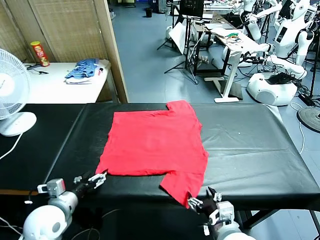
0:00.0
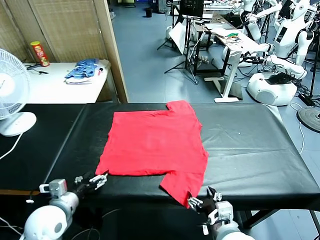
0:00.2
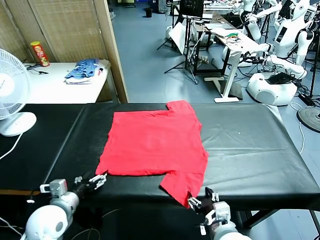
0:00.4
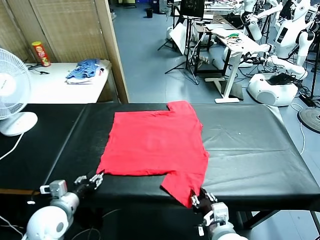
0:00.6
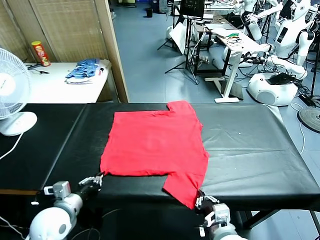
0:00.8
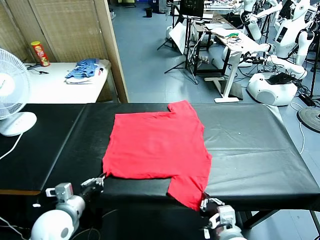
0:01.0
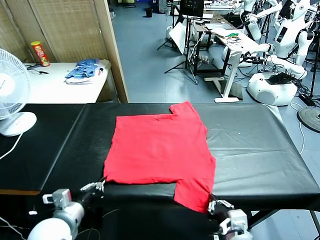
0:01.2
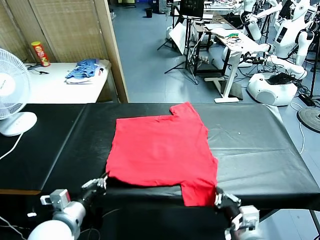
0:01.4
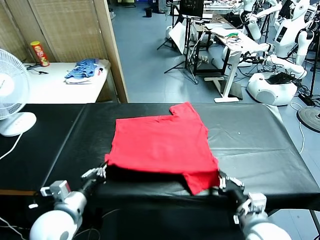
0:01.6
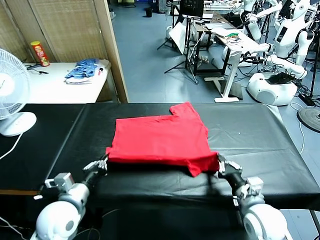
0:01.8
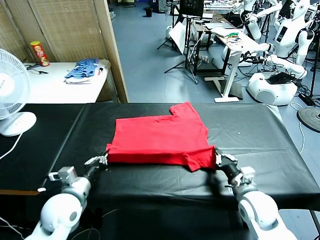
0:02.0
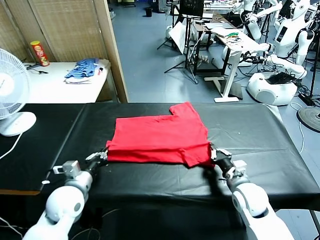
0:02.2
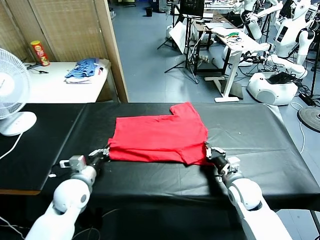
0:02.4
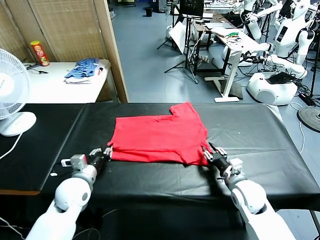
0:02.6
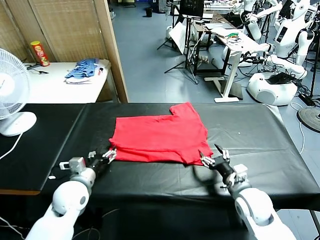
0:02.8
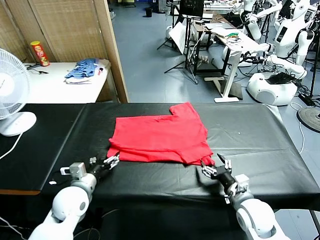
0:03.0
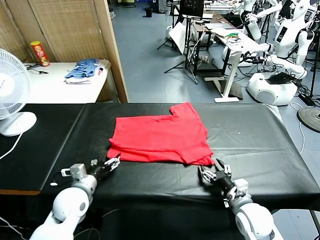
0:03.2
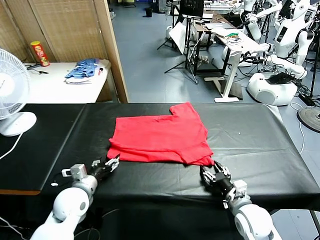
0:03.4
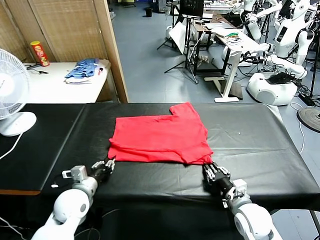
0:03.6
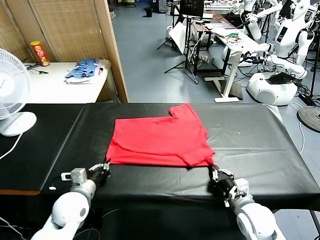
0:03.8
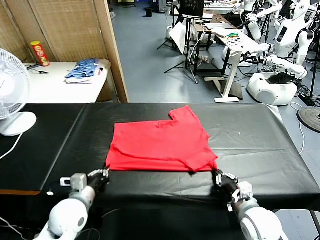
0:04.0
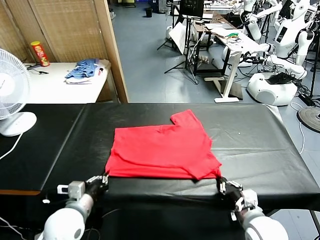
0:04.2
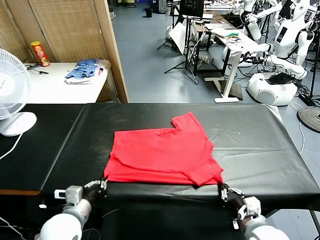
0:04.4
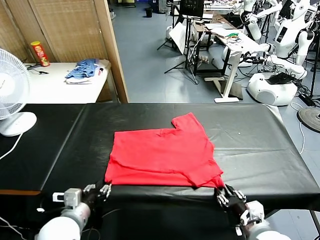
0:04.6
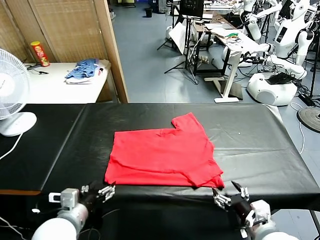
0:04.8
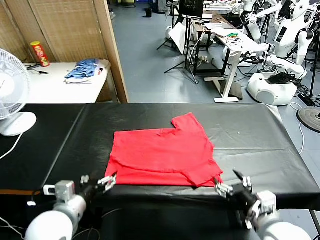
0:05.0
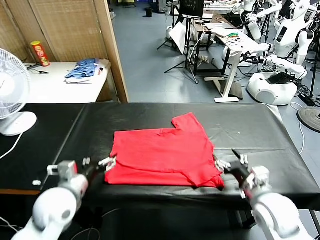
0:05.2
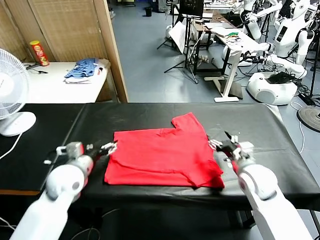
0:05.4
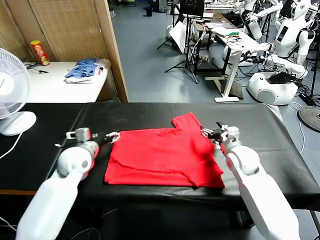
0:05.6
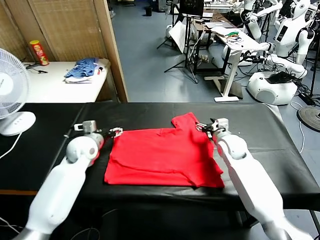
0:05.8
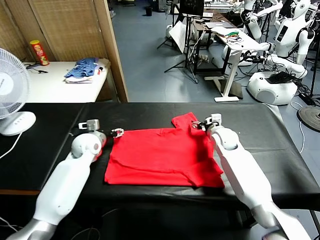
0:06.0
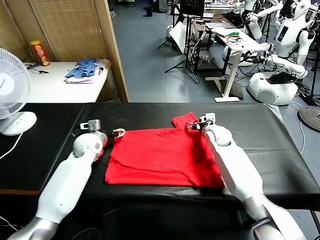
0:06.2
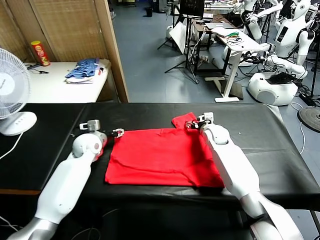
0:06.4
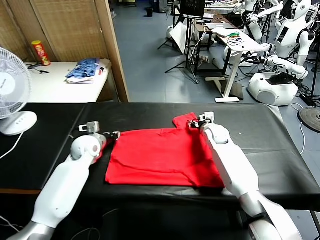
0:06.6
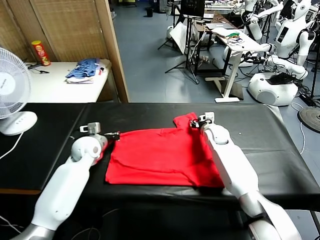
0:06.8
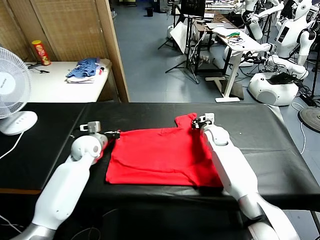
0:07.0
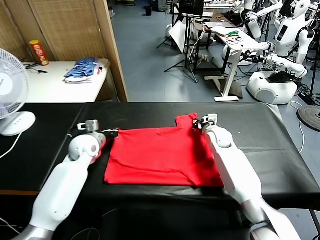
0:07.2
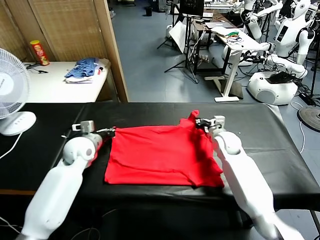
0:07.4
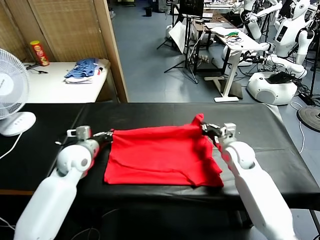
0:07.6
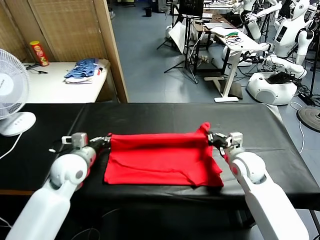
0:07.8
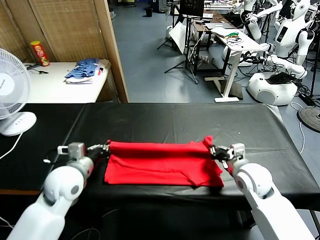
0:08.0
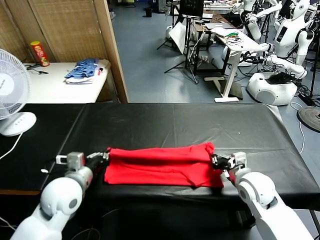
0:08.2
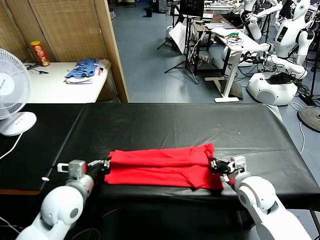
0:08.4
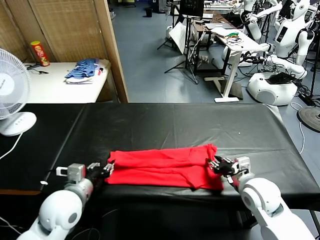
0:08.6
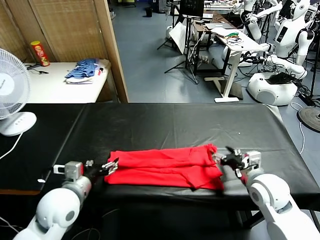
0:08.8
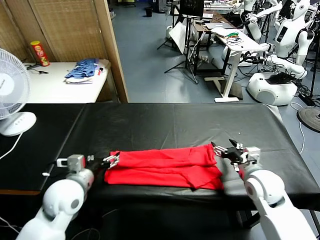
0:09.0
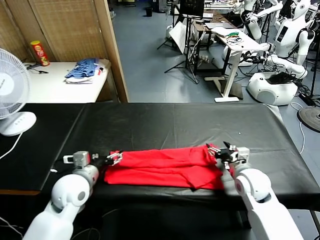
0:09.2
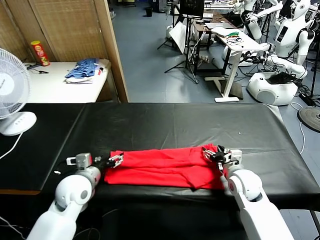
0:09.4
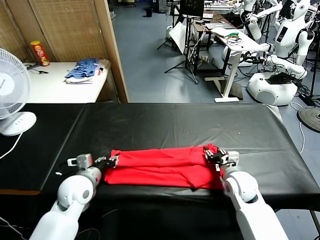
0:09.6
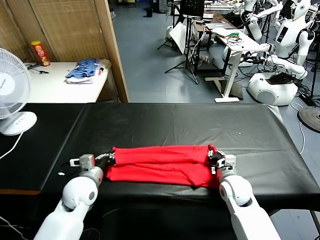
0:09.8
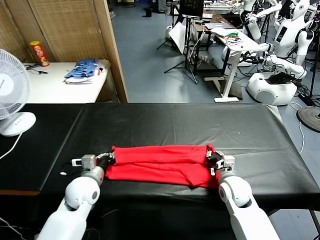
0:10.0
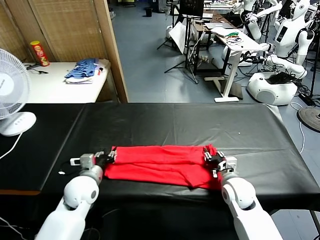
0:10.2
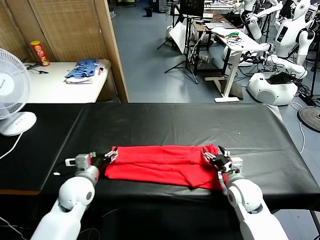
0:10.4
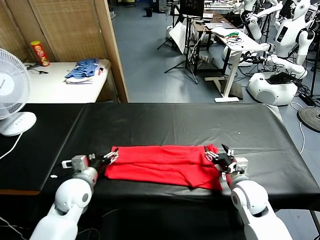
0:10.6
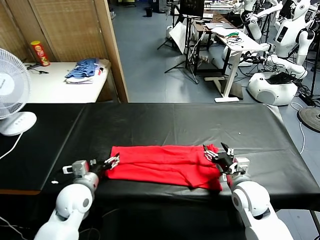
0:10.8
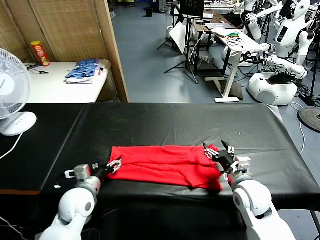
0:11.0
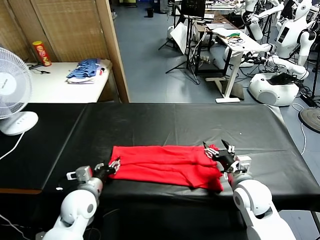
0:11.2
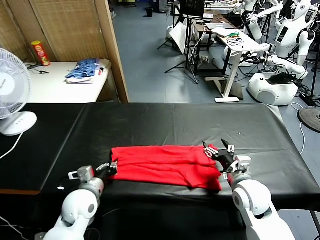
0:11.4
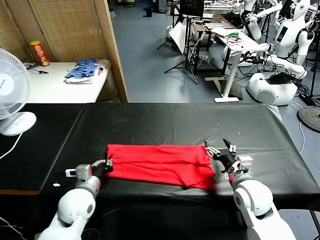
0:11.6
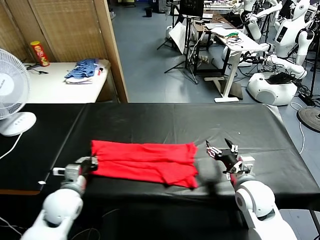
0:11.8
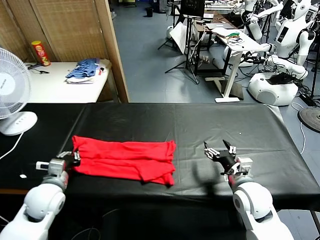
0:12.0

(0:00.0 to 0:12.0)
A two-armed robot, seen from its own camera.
Task of the whole recording: fold and organize the clothes.
Step, 0:00.0 - 0:00.8: use both grippers simultaneously to clamp the lower edge of the clothing fabric.
Step, 0:01.0 - 0:02.8: use both grippers to drag the lower edge of the fabric forward and fold it over the upper edge.
Step, 0:03.0 - 0:04.8: Drag the clothes downward with both gripper.
Step, 0:05.0 - 0:07.0: use both grippers simultaneously to clamp the upper edge of the clothing fabric.
Step, 0:07.2 - 0:08.6: use both grippers to drag the upper edge of the fabric backward and fold it over the lower edge.
Step, 0:09.0 - 0:11.4: use the left gripper to clamp the left edge of the fabric.
0:01.6 - 0:03.0: The left gripper moves forward and downward, approximately 10 cm, and opens. The right gripper travels downward by approximately 5 cm, travels forward and back again, roughly 10 cm each way, and opens up.
0:03.0 - 0:04.4: The right gripper moves backward and upward, approximately 10 cm, and closes, then opens again. Meanwhile the left gripper shifts about 10 cm backward, and closes.
0:04.4 - 0:06.0: The two grippers go approximately 35 cm forward. The right gripper opens; the left gripper opens its fingers.
0:06.0 - 0:07.6: Both grippers travel together backward, some 15 cm. The left gripper closes. Meanwhile the right gripper closes up.
0:07.6 - 0:09.0: The left gripper moves backward, approximately 10 cm, and opens its fingers; the right gripper heads backward, covering roughly 5 cm, and opens its fingers.
0:09.0 - 0:10.4: The right gripper closes, then reopens. Meanwhile the left gripper ends up approximately 5 cm from where it was, and closes, then reopens.
0:10.4 - 0:12.0: The left gripper shifts roughly 5 cm to the left, and closes.

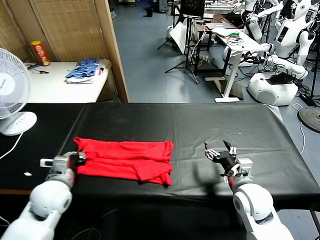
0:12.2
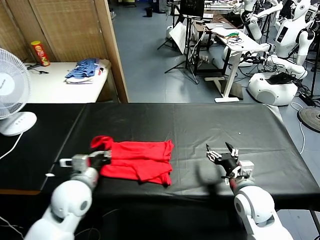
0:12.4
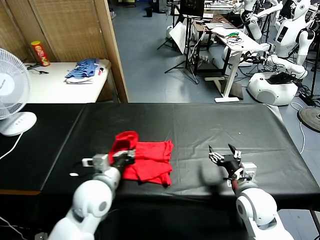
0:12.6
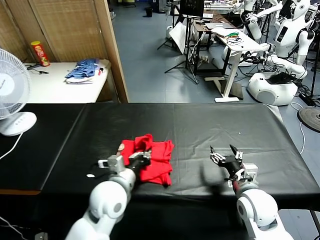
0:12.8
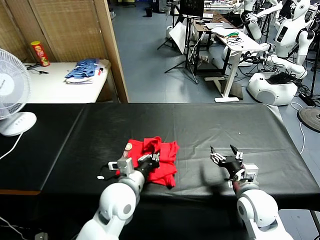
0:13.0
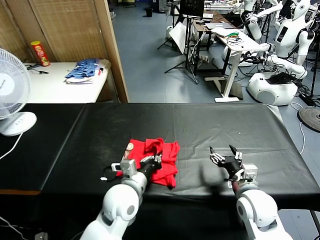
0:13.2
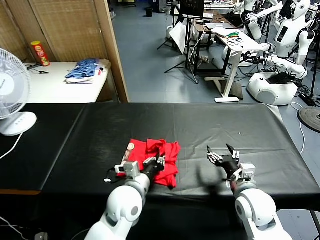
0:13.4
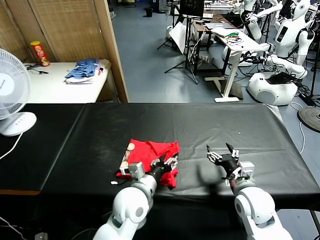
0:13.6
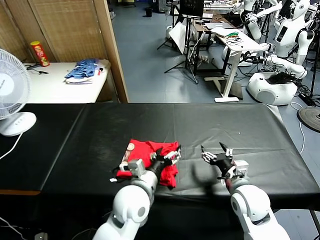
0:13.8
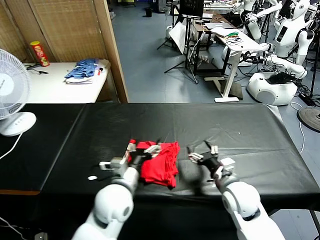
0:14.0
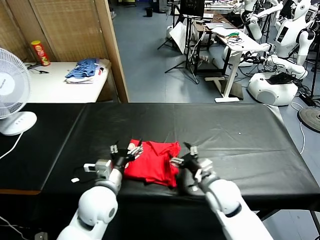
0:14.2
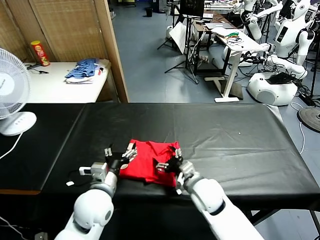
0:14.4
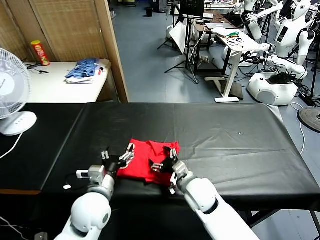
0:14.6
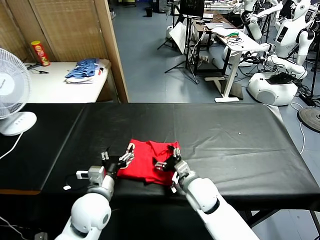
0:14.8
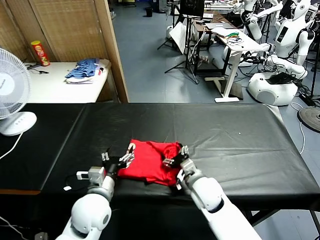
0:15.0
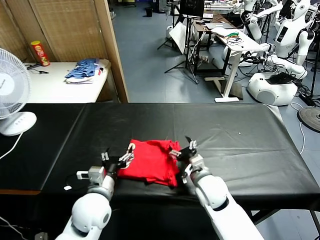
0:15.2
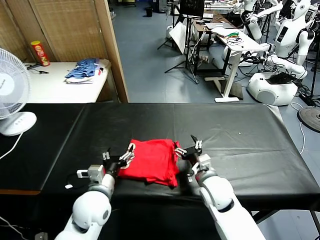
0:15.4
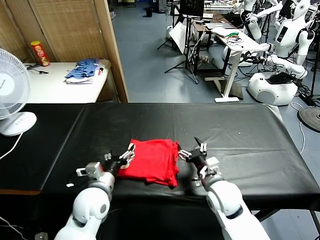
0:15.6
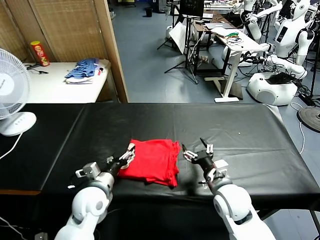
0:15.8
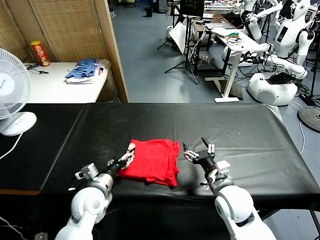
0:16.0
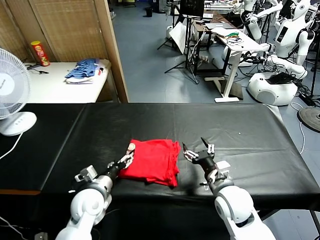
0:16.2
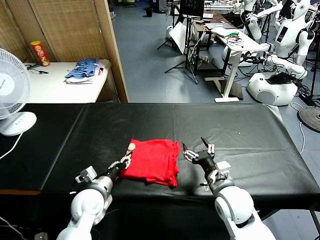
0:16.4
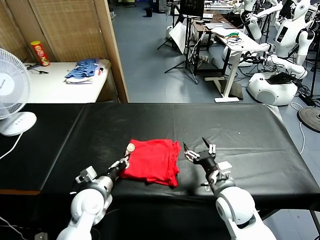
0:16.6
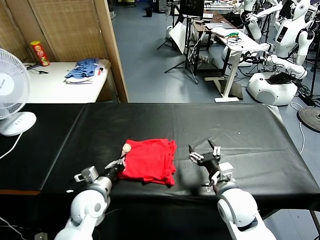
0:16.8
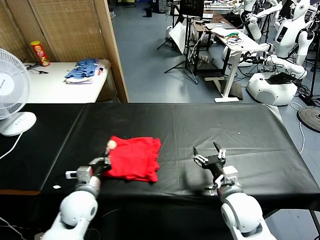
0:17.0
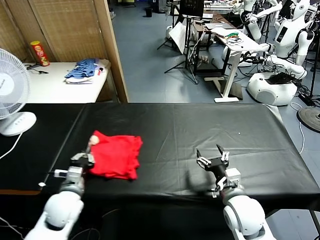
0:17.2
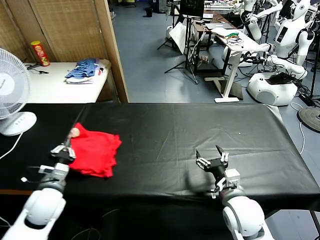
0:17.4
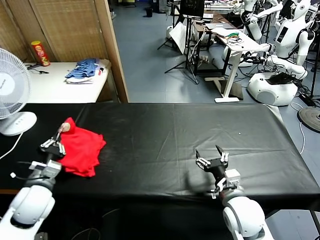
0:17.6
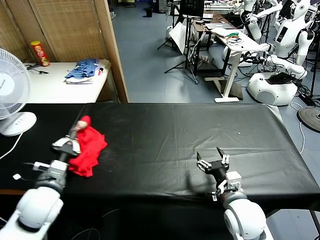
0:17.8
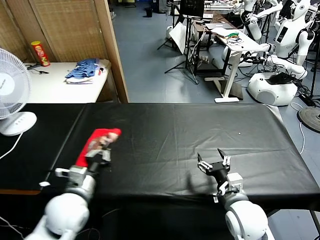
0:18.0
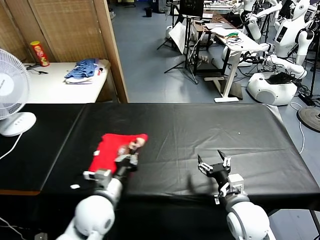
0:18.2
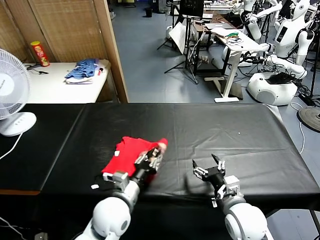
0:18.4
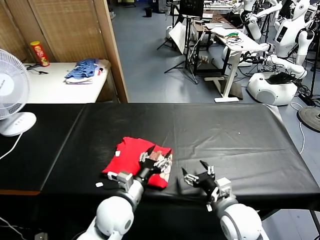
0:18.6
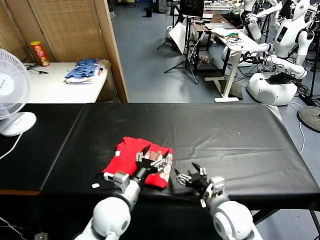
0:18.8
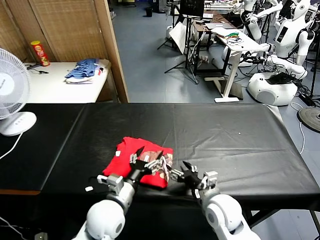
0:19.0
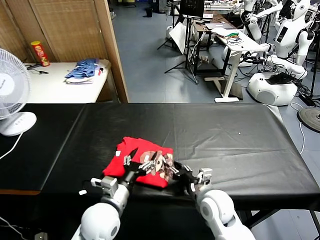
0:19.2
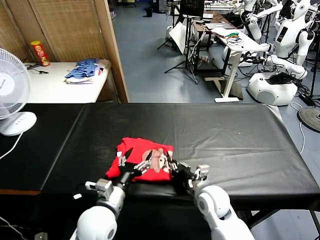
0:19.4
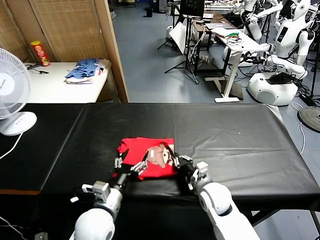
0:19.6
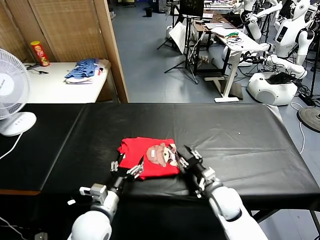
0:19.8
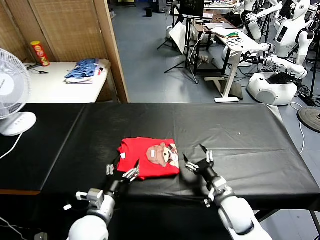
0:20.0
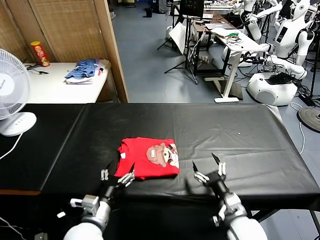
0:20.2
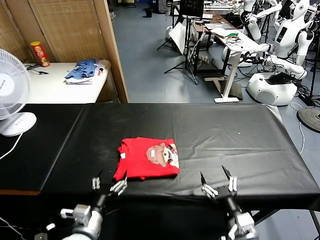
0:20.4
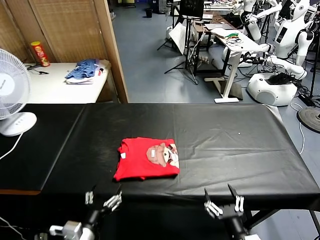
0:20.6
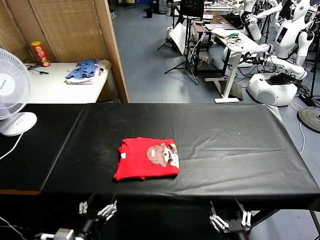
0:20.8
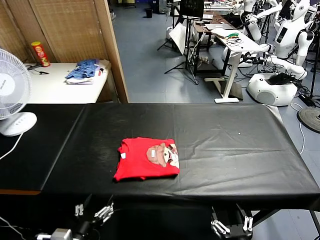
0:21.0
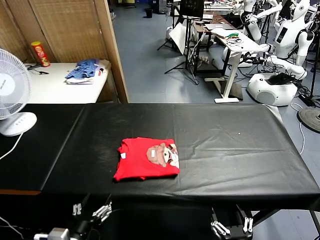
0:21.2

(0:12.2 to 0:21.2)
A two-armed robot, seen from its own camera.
Task of the whole recording: fold and organize the clothes.
Step, 0:12.2 - 0:13.8: use the left gripper to drag the left edge of the fabric to the left and folds it over the right edge.
Step, 0:14.0 - 0:18.4: Flip the folded clothes over with left gripper.
Step, 0:18.8 - 0:19.8: Drag the clothes to the center of the table.
0:12.2 - 0:13.8: The left gripper shifts roughly 20 cm to the right, and opens its fingers.
0:13.8 - 0:15.2: The grippers both shift to the left by roughly 10 cm.
0:15.2 - 0:16.6: The right gripper is displaced backward by about 5 cm, while the left gripper heads downward, covering roughly 5 cm, and closes up.
0:16.6 - 0:18.2: The left gripper is displaced upward by roughly 5 cm, and goes to the left and returns, about 10 cm each way.
0:18.2 - 0:19.8: The right gripper travels downward and forward by approximately 10 cm, and closes up. Meanwhile the left gripper opens its fingers.
0:19.8 - 0:21.2: The left gripper shifts approximately 15 cm backward and to the left. The right gripper moves backward, roughly 25 cm, and opens.
